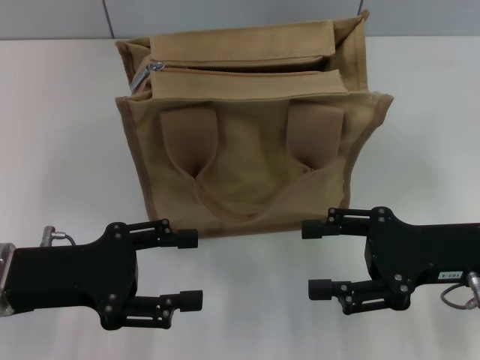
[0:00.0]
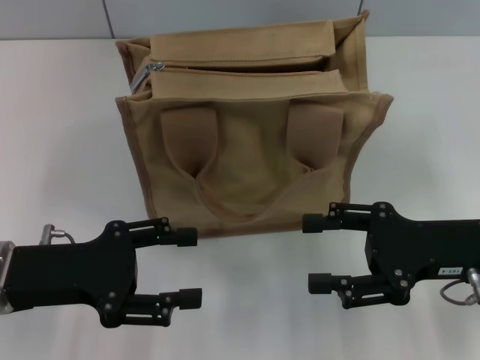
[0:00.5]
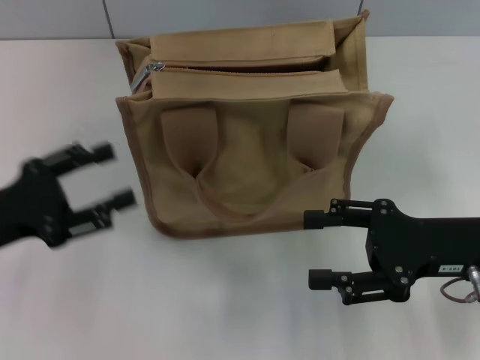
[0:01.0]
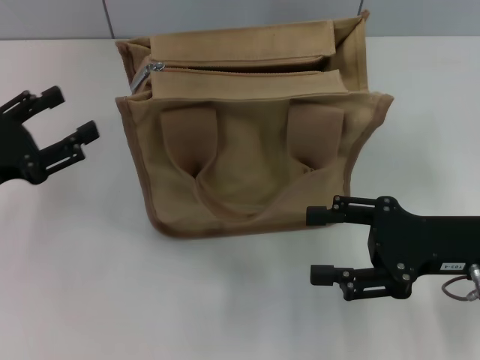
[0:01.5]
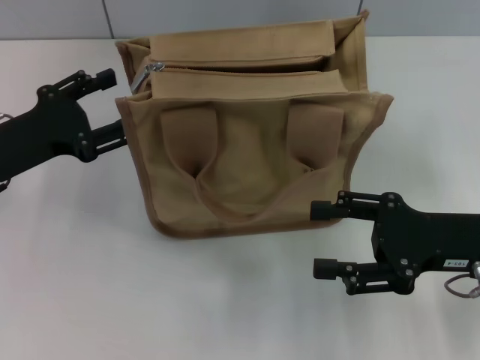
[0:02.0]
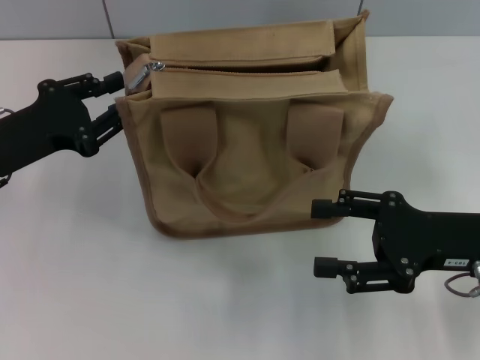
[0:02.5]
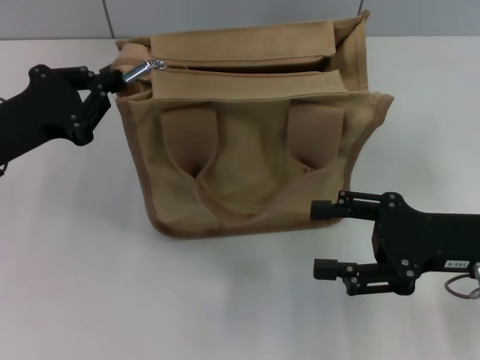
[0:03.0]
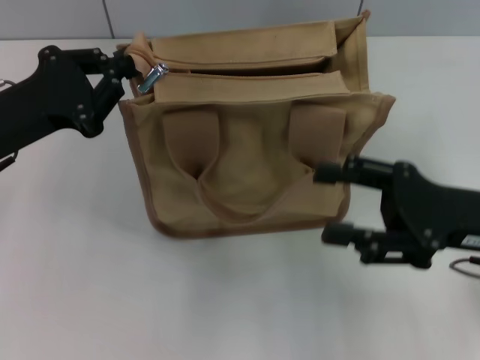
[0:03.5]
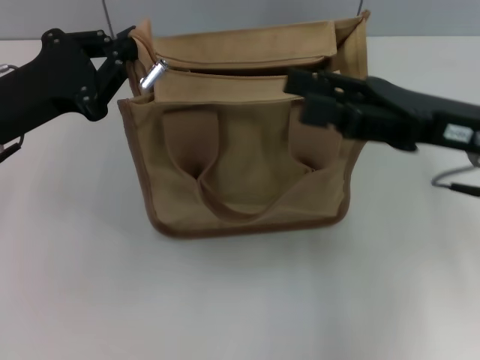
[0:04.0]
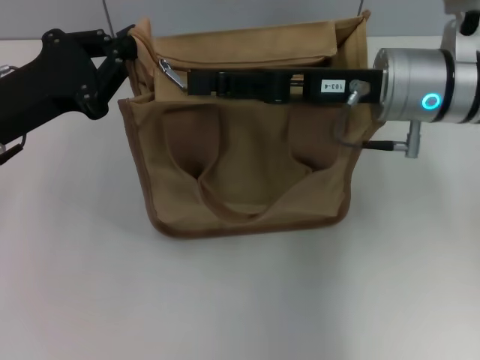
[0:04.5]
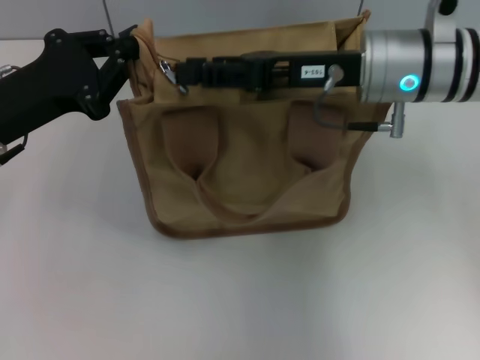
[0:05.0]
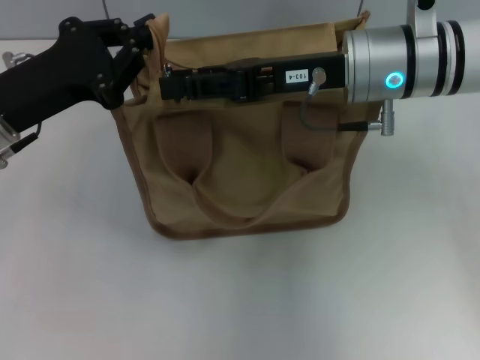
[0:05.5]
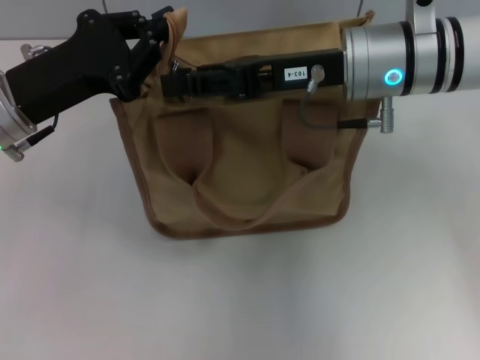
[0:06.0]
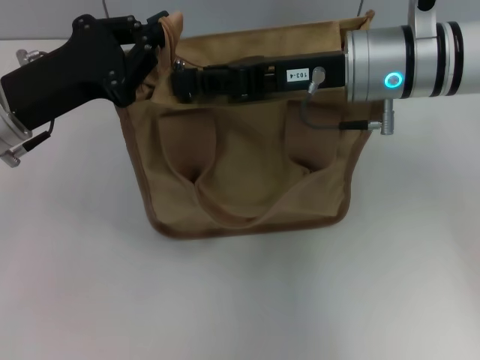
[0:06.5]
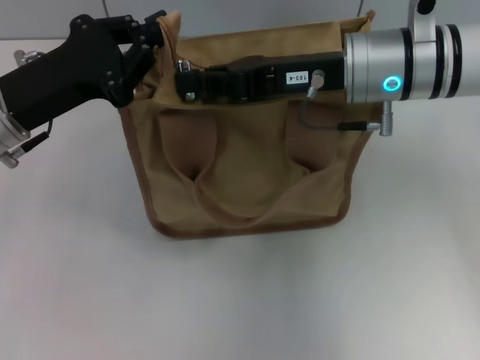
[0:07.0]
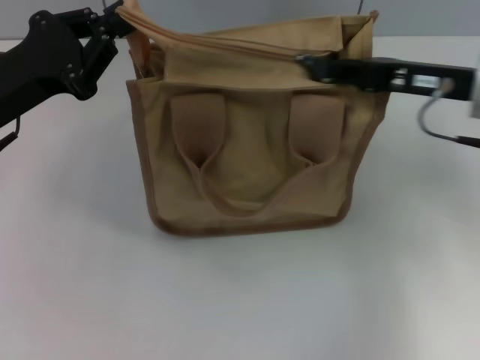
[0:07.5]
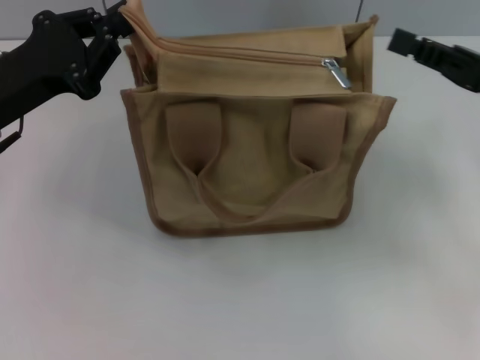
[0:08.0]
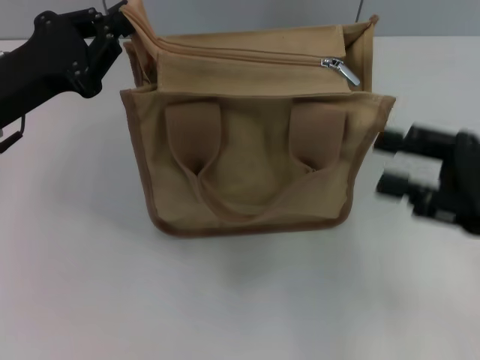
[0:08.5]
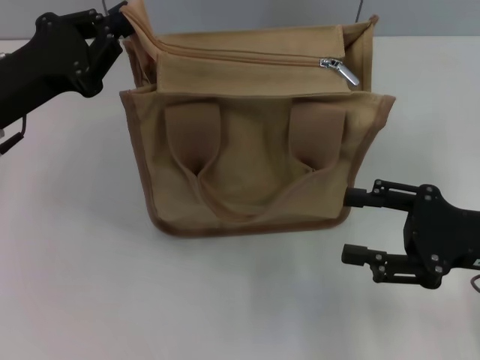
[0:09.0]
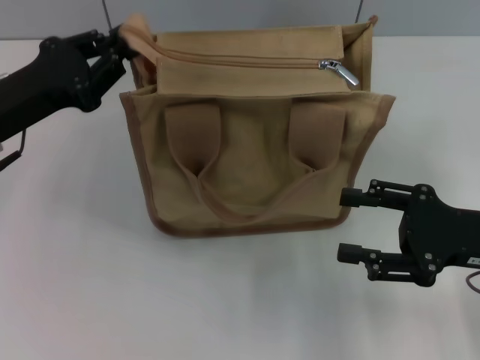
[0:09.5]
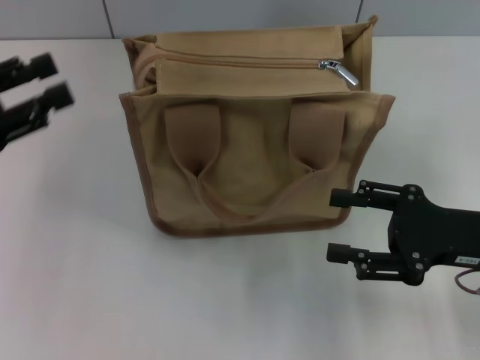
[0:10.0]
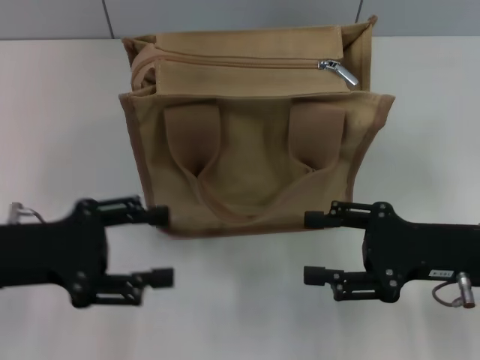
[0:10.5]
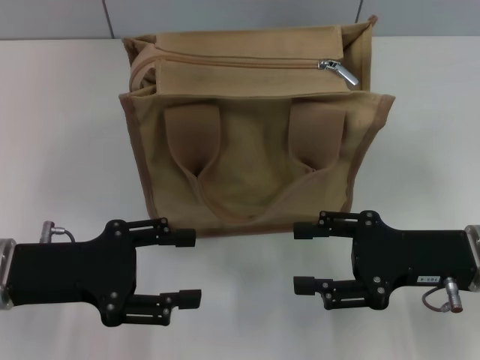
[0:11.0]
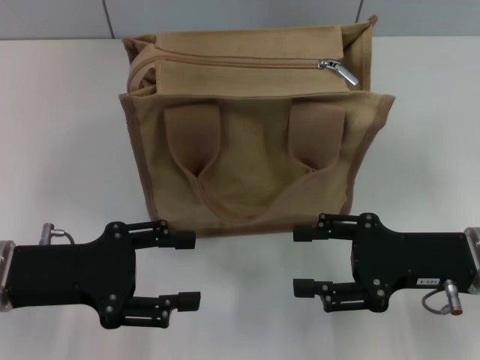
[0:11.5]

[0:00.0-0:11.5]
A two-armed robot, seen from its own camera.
Step, 0:00.0 to 0:07.5: Pull up the zipper with your right hand.
0:00.0 to 0:02.0: The left gripper moves forward, about 5 cm.
0:02.0 to 0:04.0: The right gripper heads upward and forward, covering approximately 10 cm. The left gripper closes up.
0:04.0 to 0:06.0: The right gripper is displaced to the left and forward by some 10 cm, and closes its fingers.
0:06.0 to 0:07.5: The right gripper travels to the right by some 10 cm, and closes up.
0:07.5 to 0:09.5: The right gripper heads backward and downward, covering approximately 15 cm, and opens.
0:09.5 to 0:11.5: The left gripper travels backward by some 10 cm, moves roughly 5 cm to the left and comes back, and opens its fingers.
